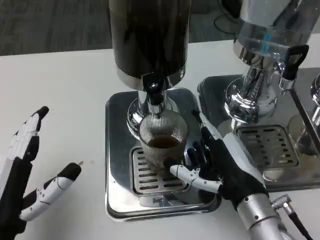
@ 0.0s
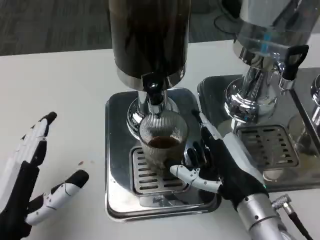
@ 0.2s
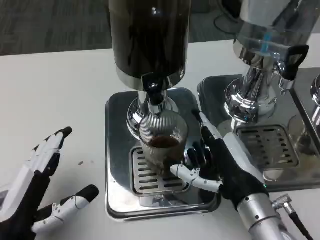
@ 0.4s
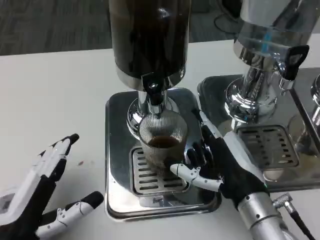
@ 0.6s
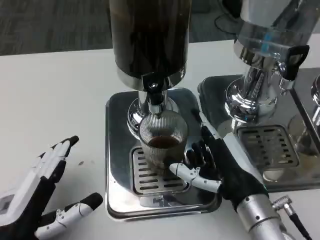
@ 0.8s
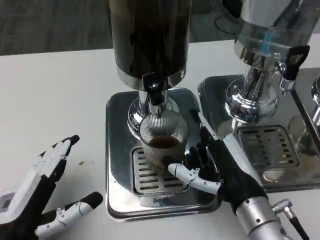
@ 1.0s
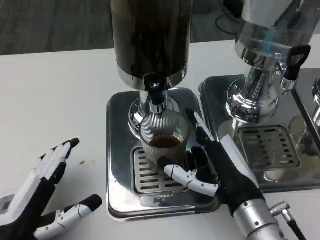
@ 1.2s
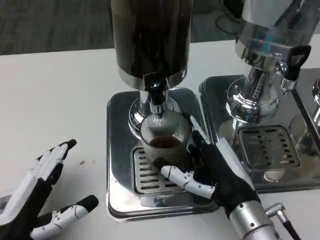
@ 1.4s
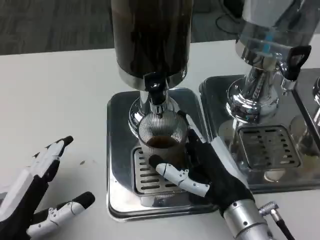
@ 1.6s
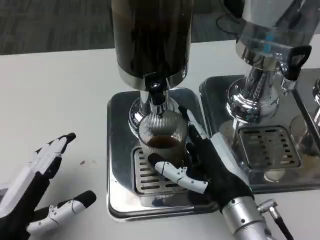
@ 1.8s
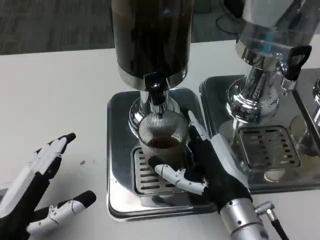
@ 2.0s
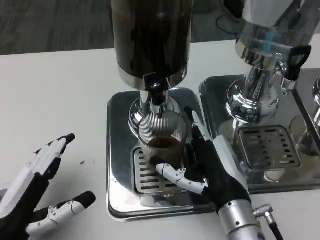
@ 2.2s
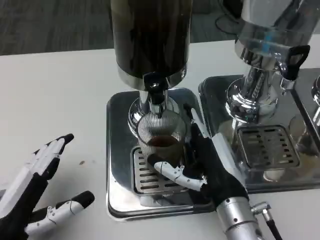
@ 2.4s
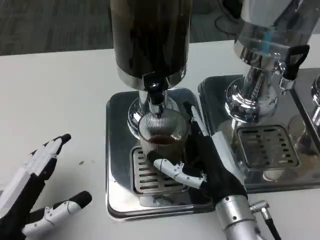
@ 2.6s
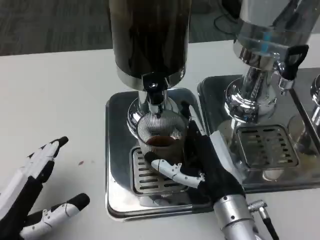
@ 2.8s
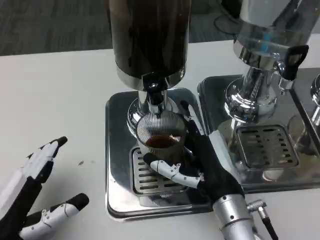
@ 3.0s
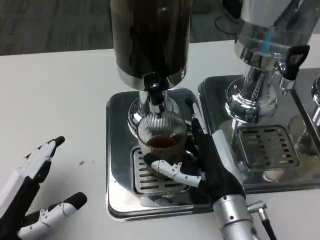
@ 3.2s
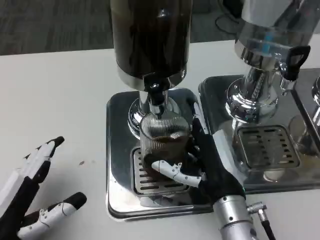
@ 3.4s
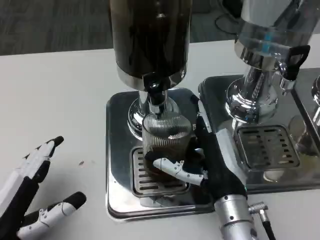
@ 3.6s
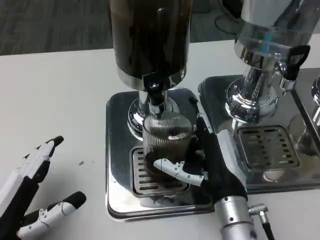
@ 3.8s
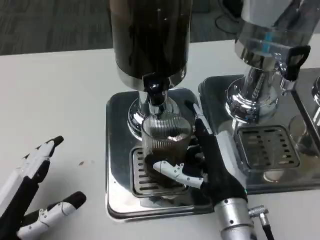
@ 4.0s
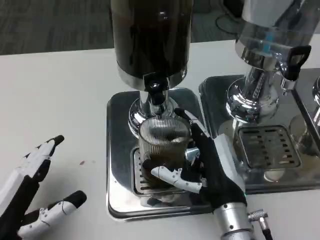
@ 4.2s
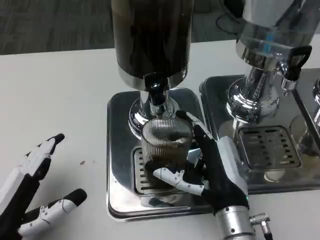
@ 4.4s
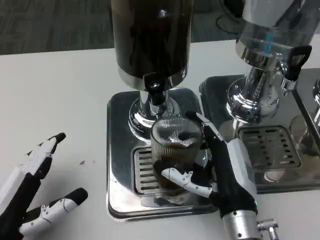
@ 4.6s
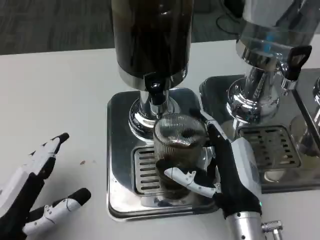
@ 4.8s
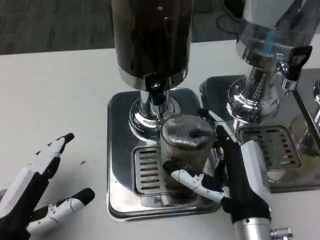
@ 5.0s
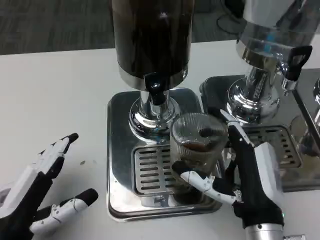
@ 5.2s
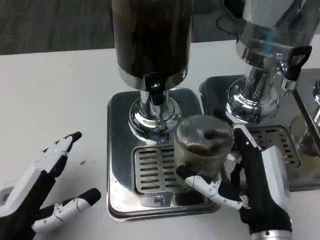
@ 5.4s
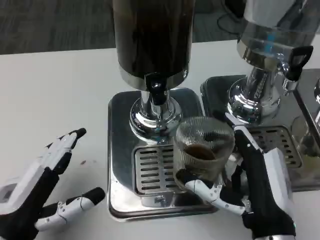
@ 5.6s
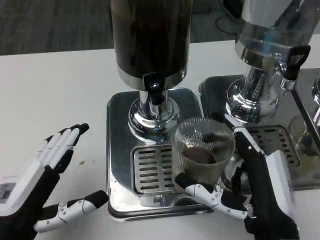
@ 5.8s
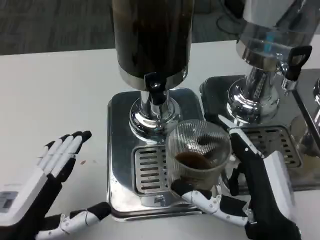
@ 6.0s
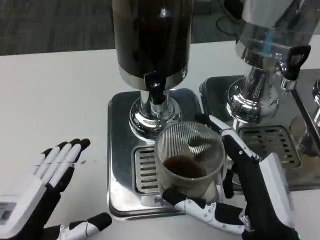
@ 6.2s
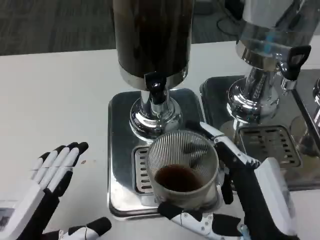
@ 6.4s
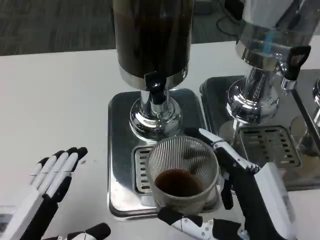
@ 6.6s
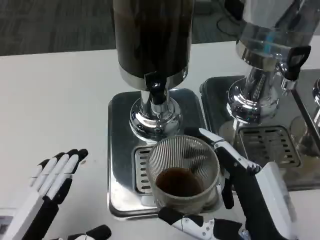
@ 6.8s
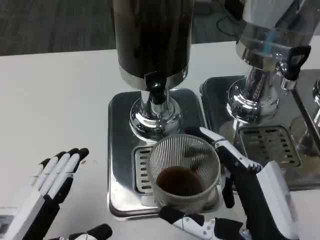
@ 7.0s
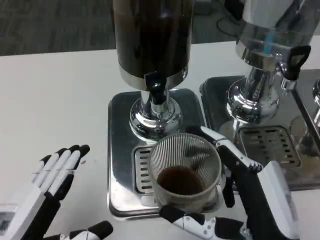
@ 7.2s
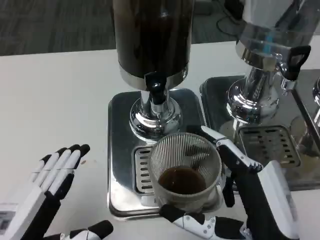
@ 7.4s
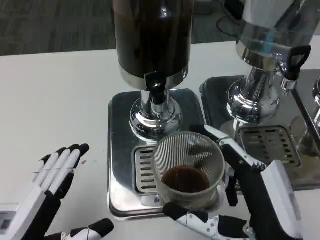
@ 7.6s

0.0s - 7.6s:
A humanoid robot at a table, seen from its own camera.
Task of the whole recording: Grasp the cup under the faucet to collect the drink, then remove the cup.
1.6s - 3.0s: The hands make only small movements.
4.6s - 6.0s: The right hand moves backward, some 5 cm.

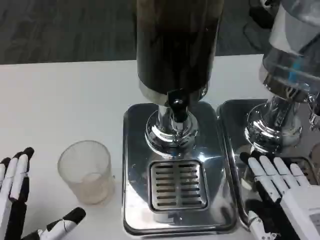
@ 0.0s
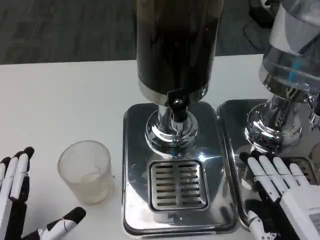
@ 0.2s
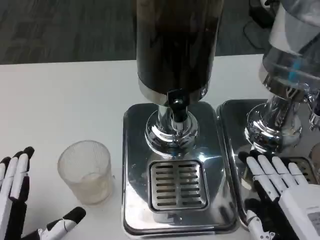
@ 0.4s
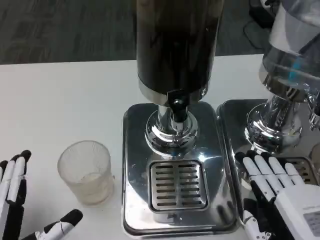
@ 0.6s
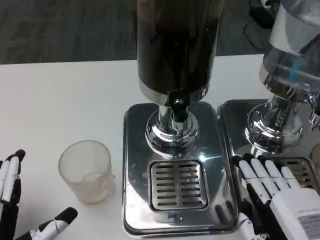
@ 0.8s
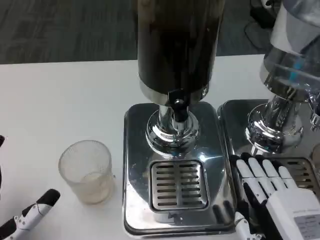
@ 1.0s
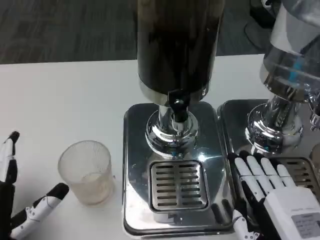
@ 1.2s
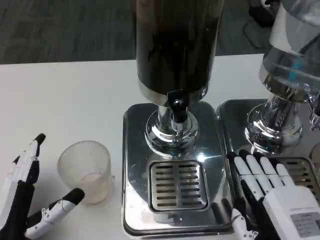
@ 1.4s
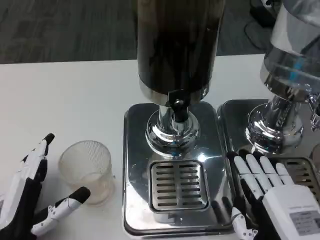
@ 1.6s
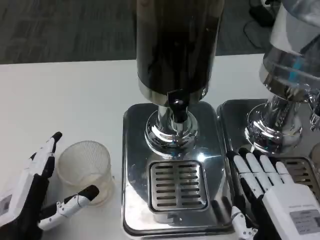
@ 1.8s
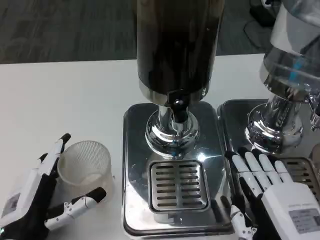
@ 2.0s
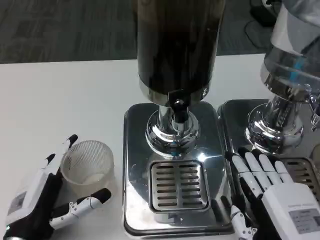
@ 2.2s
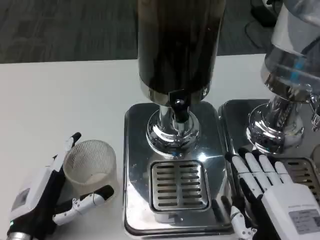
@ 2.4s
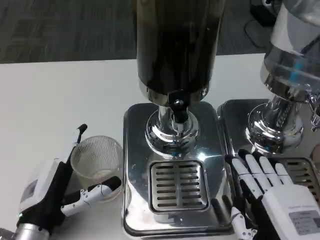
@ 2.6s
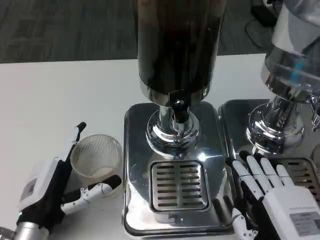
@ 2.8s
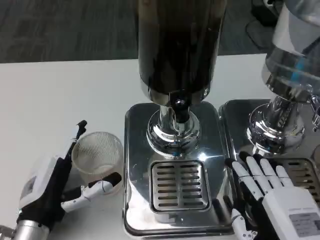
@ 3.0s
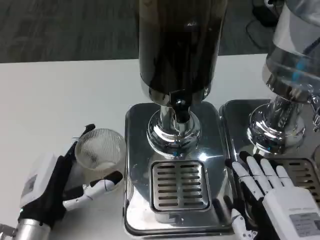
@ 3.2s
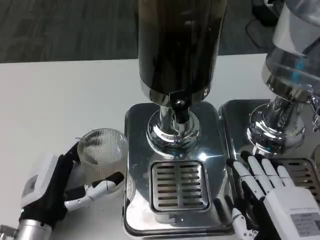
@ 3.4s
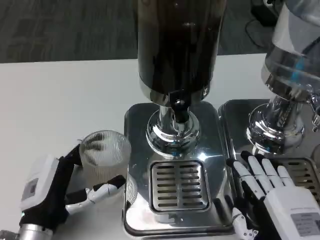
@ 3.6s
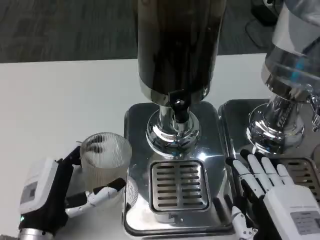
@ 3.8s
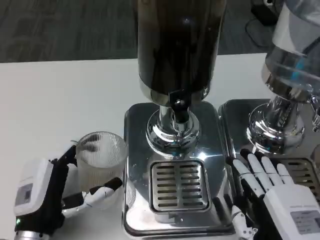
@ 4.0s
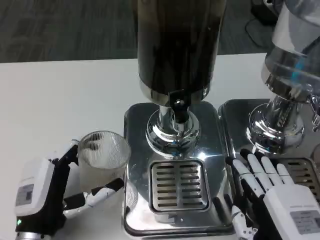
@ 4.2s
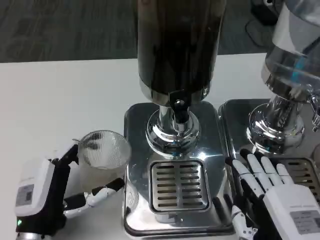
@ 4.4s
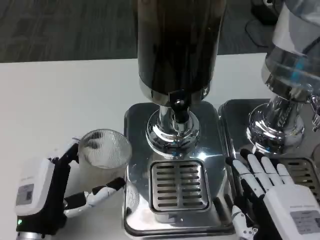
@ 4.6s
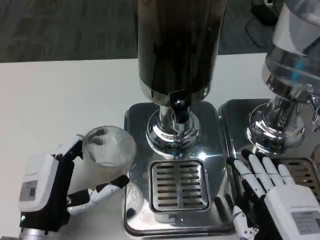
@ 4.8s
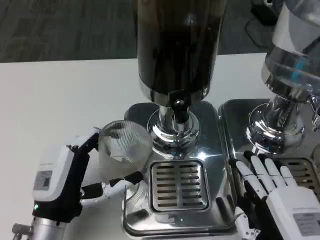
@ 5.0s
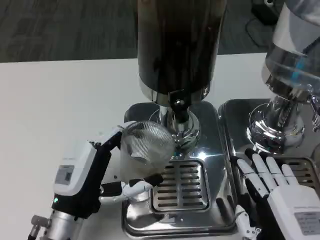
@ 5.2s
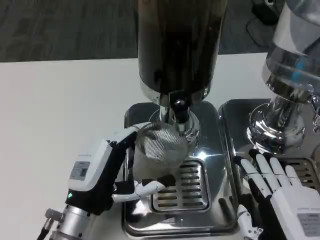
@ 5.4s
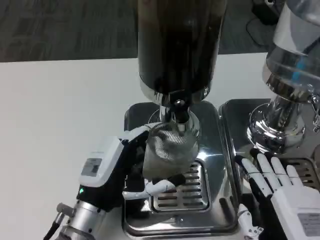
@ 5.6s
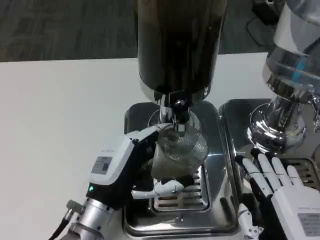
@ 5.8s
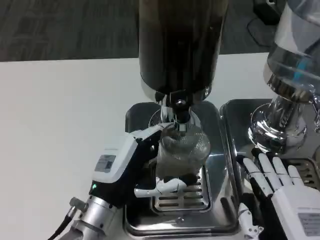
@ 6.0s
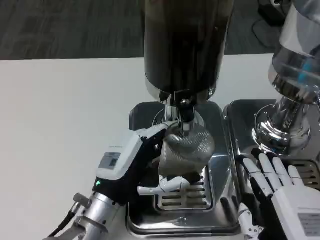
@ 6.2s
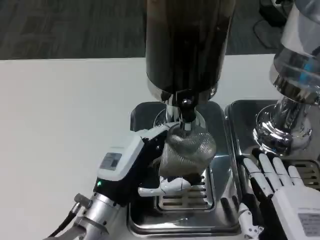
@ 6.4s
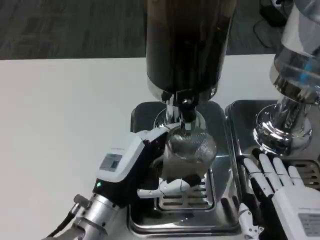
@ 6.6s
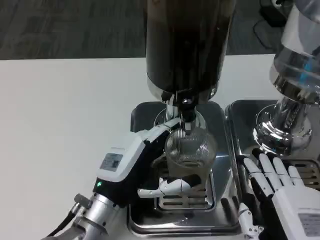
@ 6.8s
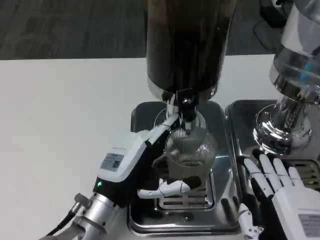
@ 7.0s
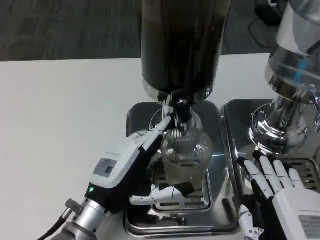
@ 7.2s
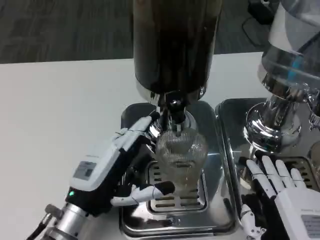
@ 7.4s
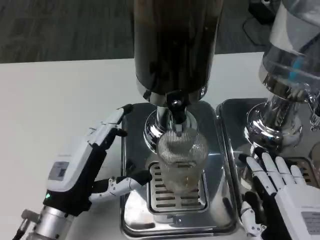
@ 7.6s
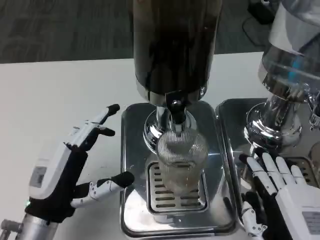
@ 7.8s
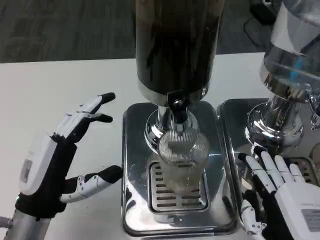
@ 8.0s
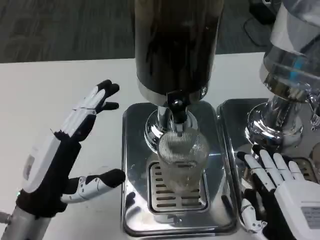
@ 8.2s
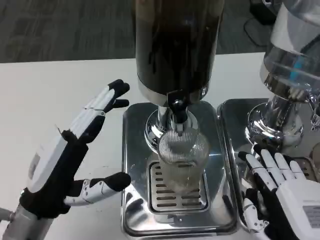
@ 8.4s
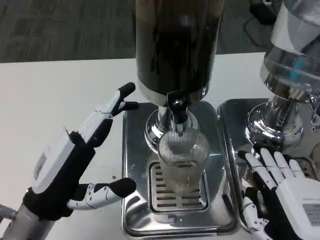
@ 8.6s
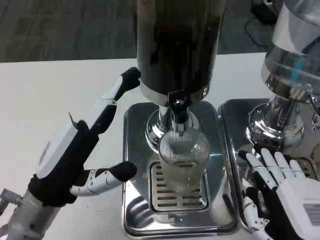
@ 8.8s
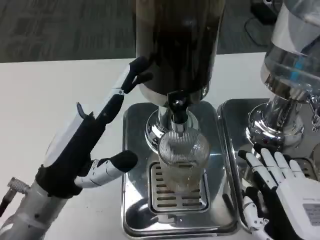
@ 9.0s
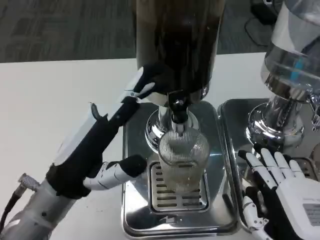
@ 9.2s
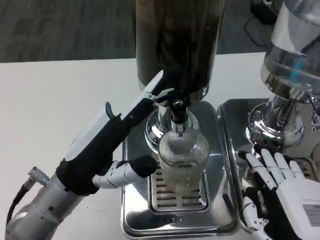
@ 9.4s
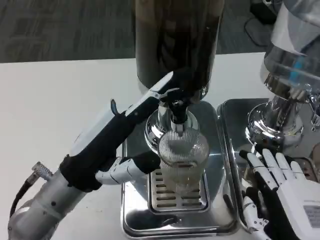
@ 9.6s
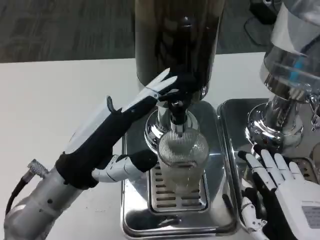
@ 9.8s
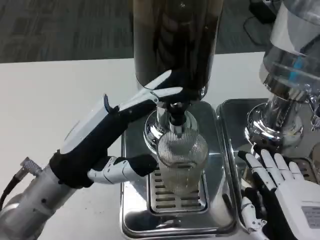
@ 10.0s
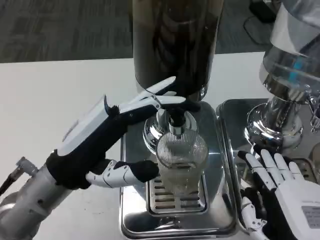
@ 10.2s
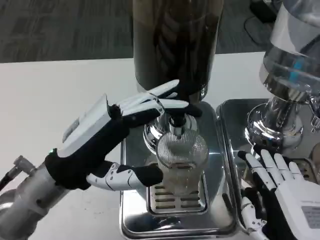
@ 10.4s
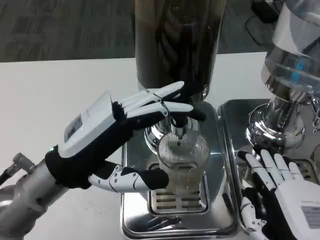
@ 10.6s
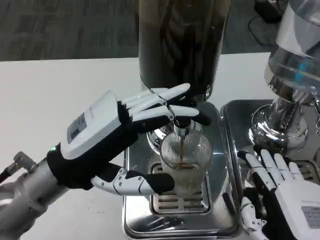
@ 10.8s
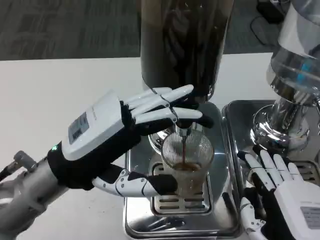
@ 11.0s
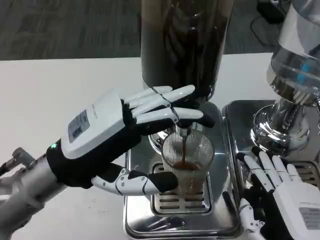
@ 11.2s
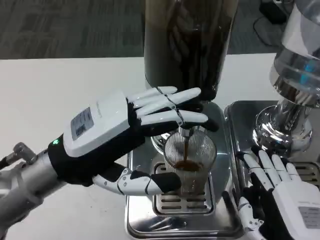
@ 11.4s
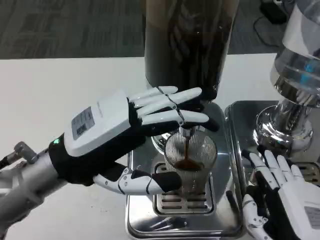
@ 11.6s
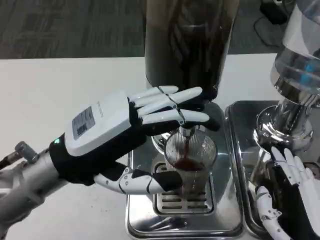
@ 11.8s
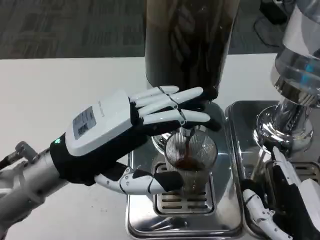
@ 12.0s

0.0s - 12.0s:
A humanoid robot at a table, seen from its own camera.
Task of the whole recording: Grasp the cup under the faucet to collect the drink, then remove the cup.
0.0s - 1.6s: The left hand shifts roughly 5 cm forward.
1.6s - 4.4s: The hands move only a little.
4.4s - 6.0s: The left hand shifts about 10 cm to the right and forward.
6.0s - 7.6s: The left hand heads to the left, covering roughly 5 cm.
7.6s - 9.0s: The left hand heads upward, covering some 5 cm.

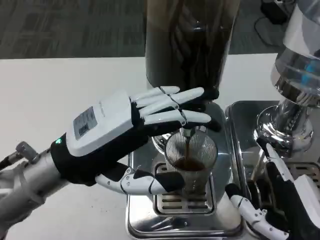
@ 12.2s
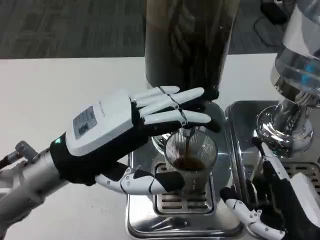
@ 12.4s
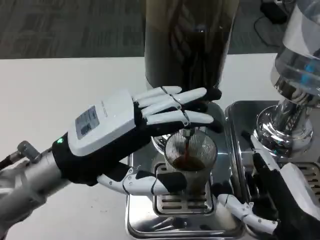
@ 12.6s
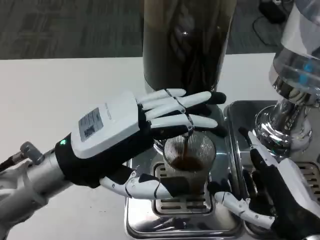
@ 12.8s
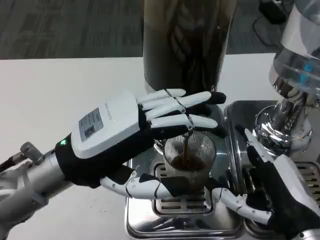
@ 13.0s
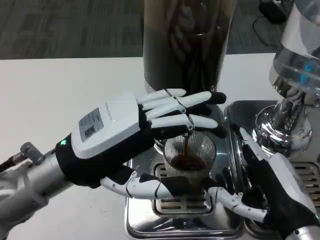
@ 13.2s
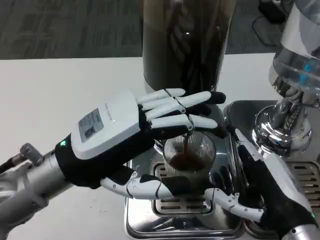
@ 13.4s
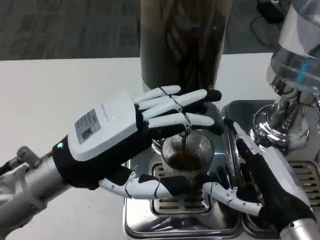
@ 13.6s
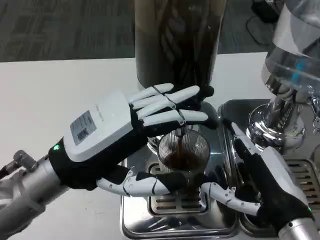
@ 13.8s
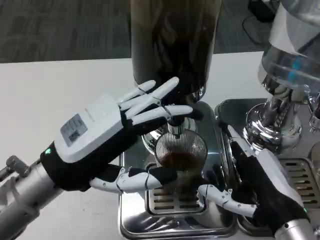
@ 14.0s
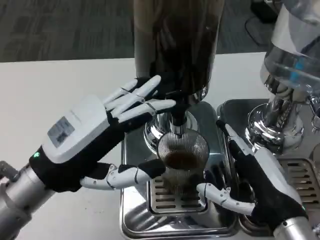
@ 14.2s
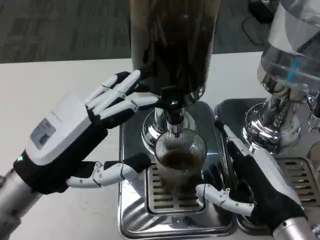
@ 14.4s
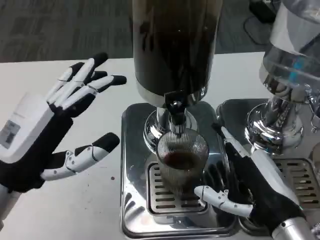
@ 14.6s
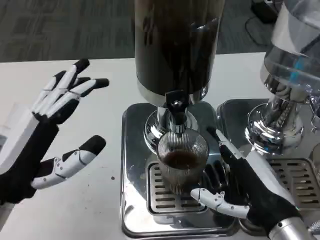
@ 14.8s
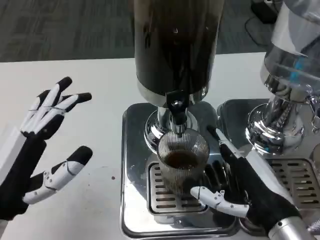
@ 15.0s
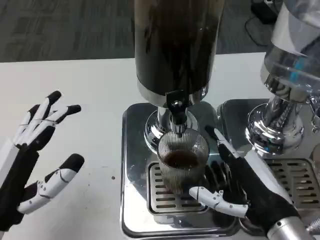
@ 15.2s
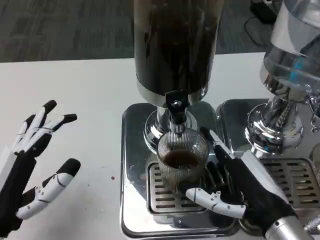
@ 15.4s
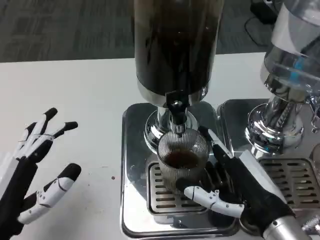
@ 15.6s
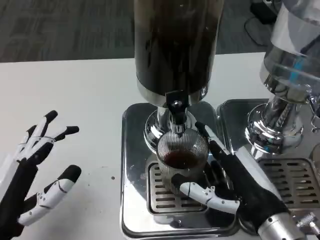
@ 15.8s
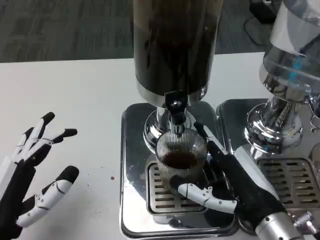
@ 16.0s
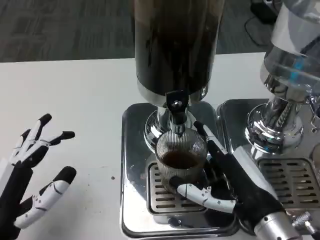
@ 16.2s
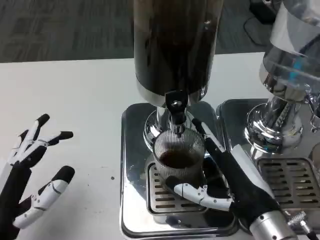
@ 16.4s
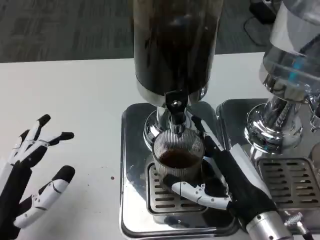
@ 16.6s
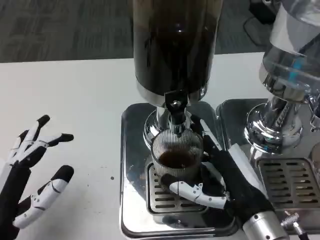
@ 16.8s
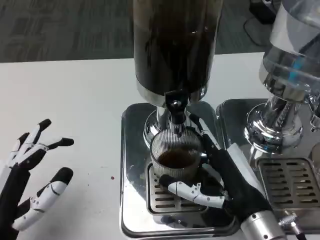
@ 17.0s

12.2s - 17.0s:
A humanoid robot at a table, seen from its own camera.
Task of the whole recording: Grasp the cup under the faucet to collect the drink, then remove the cup.
13.8s - 15.4s: The left hand shifts about 15 cm backward, downward and to the left.
15.4s - 17.0s: The hands move only a little.
